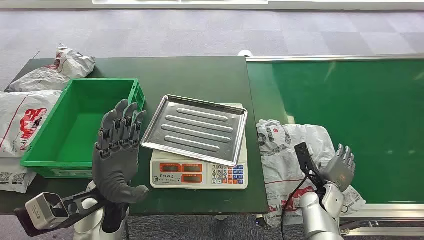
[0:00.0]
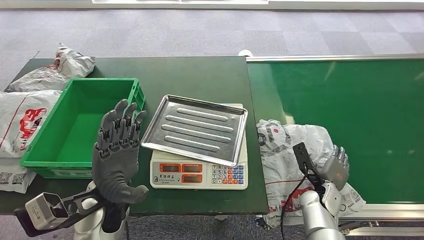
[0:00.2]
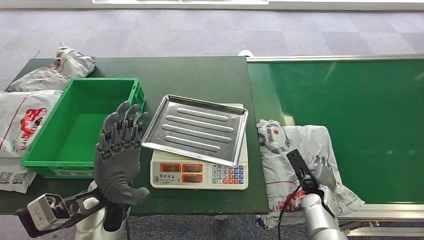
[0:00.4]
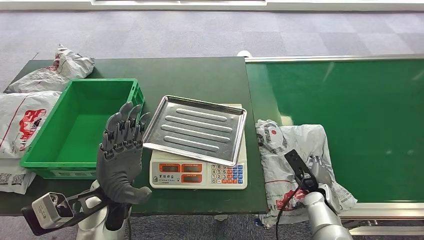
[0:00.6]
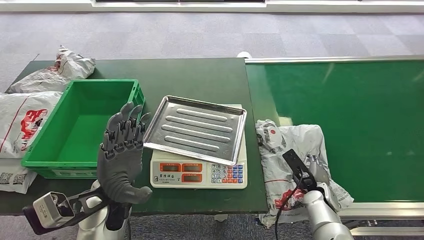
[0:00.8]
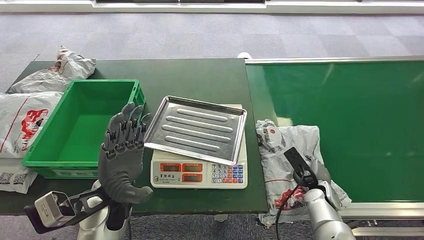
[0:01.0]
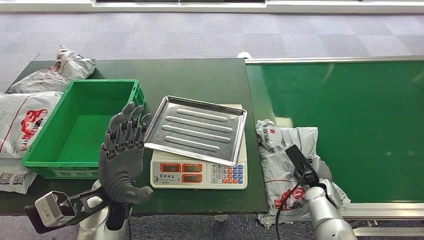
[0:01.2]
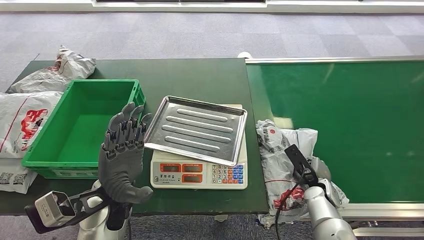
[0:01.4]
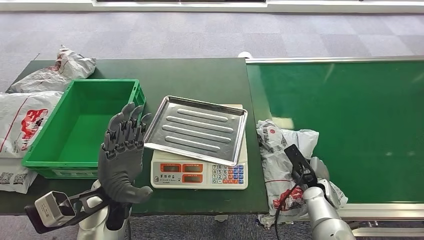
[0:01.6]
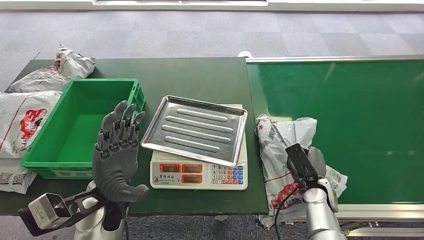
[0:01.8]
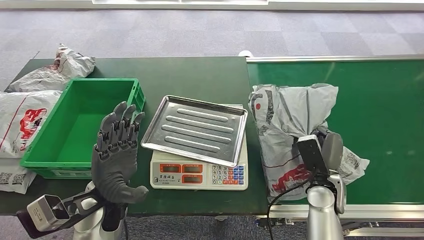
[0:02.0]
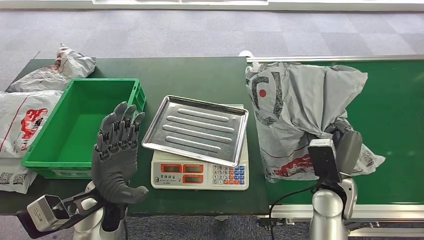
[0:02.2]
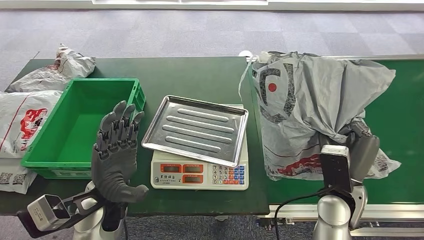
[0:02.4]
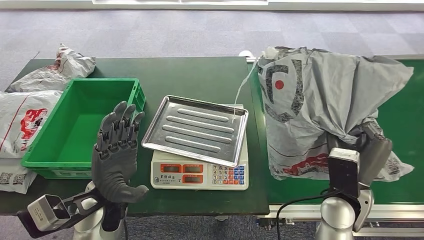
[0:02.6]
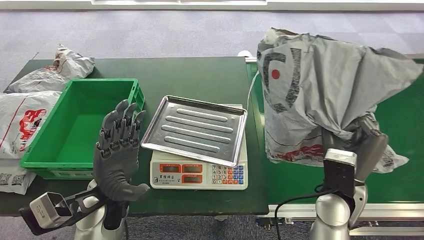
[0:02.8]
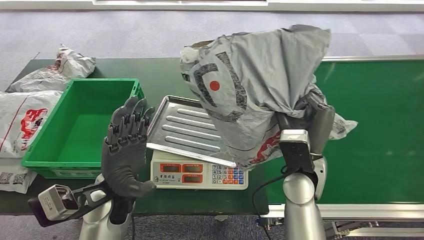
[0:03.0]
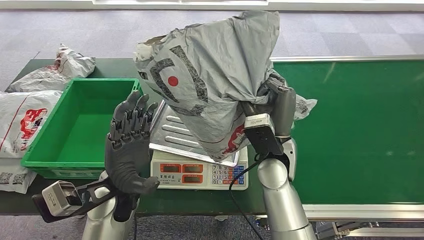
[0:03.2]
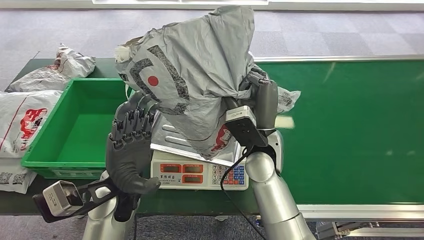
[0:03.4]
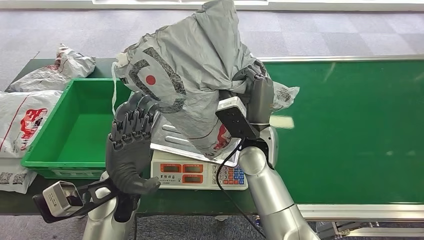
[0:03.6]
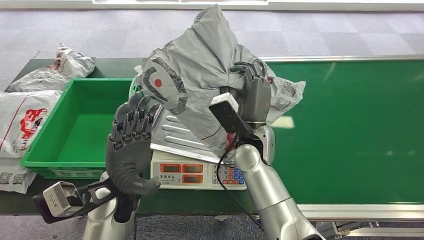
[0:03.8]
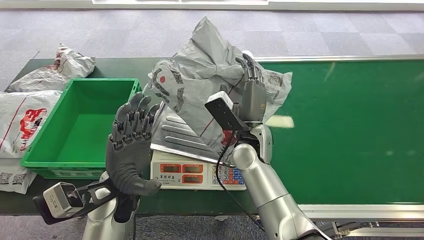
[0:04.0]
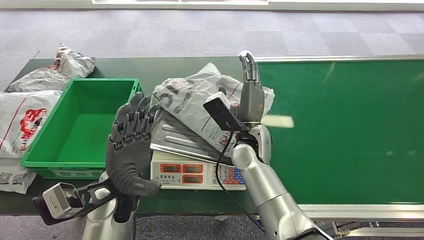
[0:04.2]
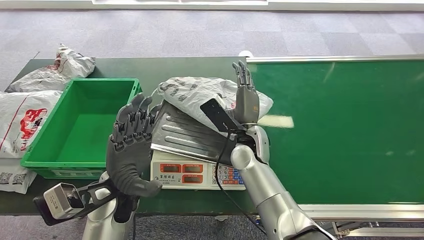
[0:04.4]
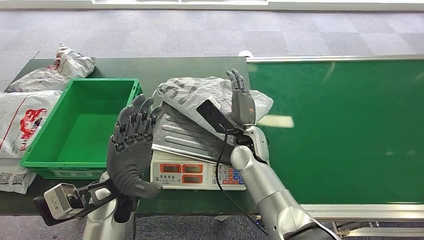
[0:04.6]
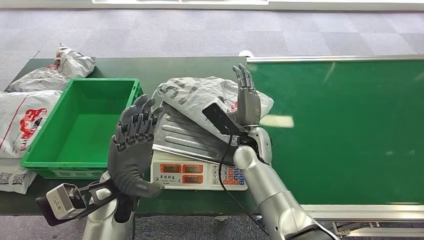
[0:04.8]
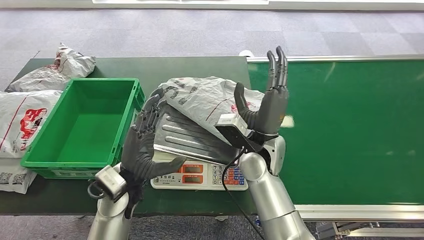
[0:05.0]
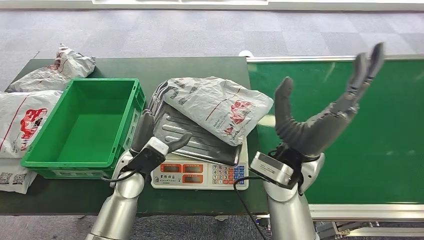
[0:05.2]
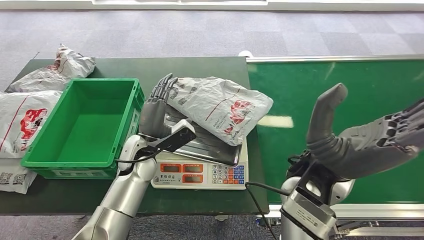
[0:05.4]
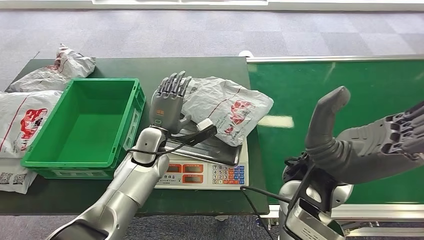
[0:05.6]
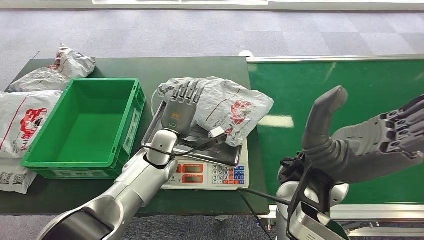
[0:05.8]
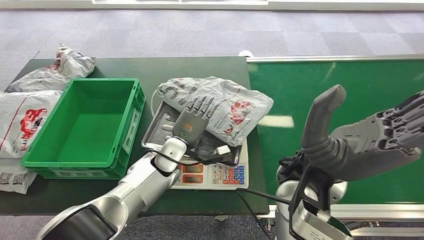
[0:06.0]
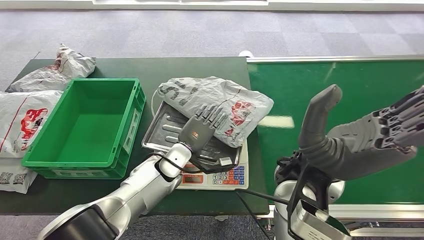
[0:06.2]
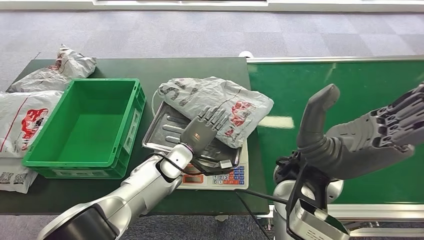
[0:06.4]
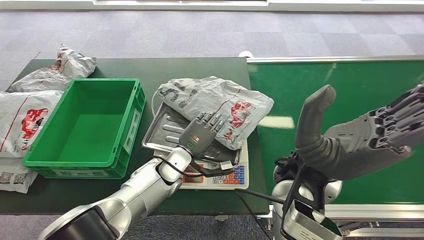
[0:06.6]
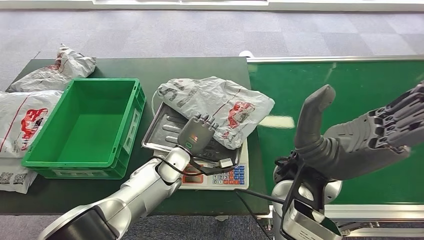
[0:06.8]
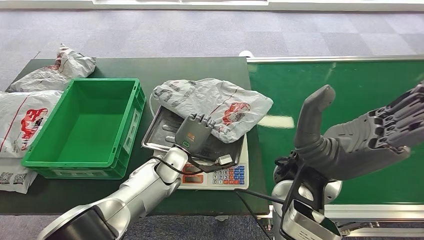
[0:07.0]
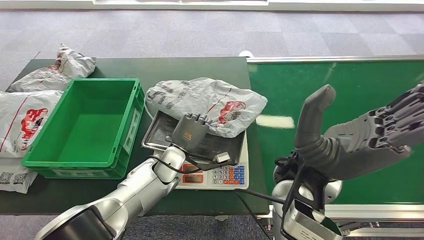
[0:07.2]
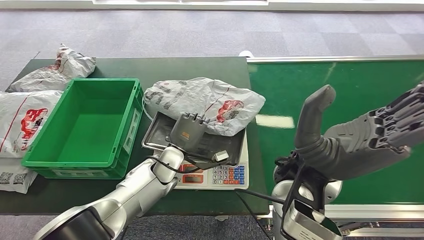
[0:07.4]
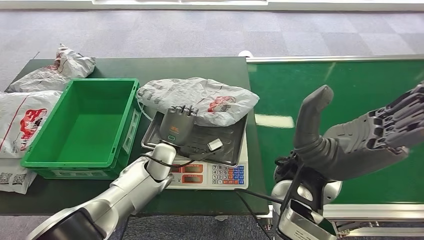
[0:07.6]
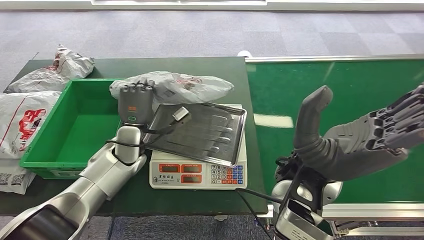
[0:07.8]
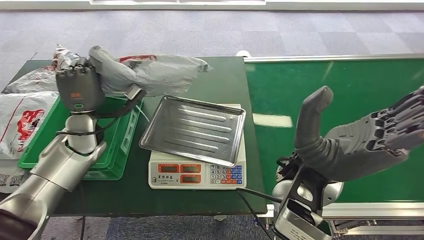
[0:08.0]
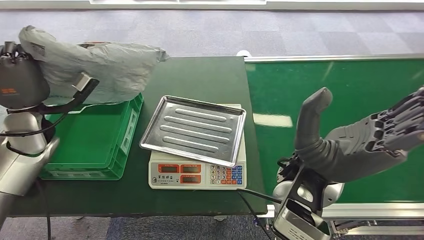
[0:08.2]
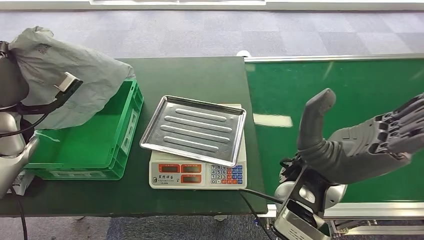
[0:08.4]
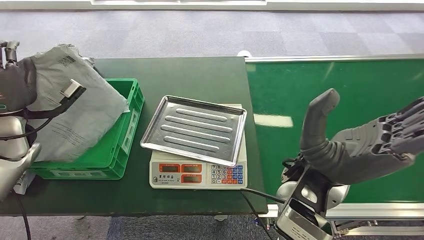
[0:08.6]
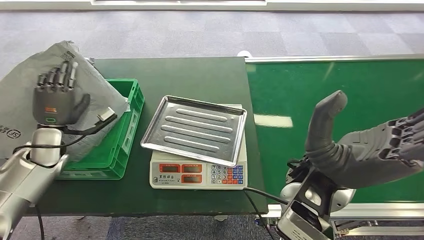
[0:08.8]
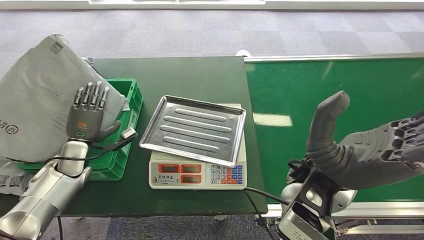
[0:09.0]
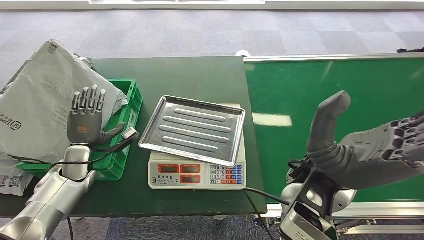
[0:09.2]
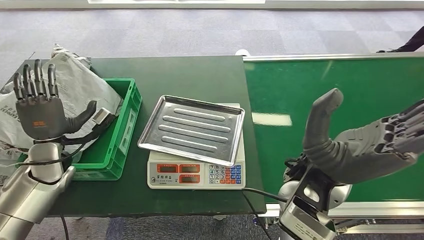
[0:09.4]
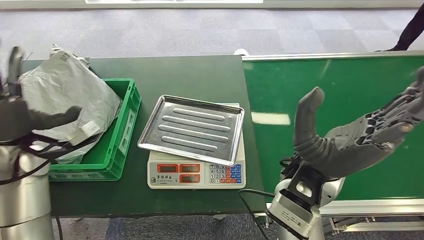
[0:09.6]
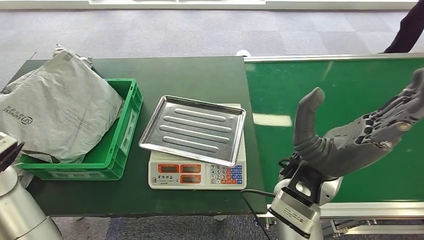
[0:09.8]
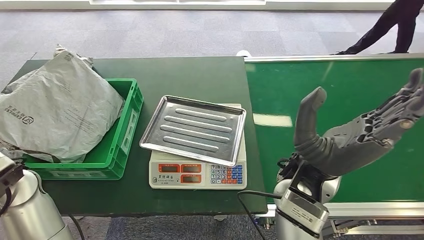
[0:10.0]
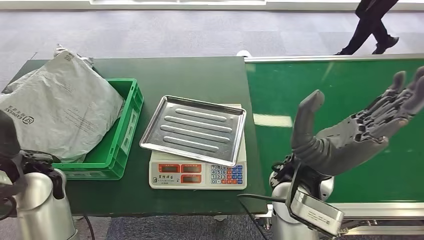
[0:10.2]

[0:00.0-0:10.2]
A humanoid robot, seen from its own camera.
Step, 0:00.0 to 0:02.8: Pick up the package from the conveyor belt.
Step, 0:03.0 to 0:06.0: Place the package onto the inbound machine.
Step, 0:06.2 to 0:08.2: Pick up the package from the inbound machine.
Step, 0:08.4 to 0:10.0: Place the package into the parcel locker.
